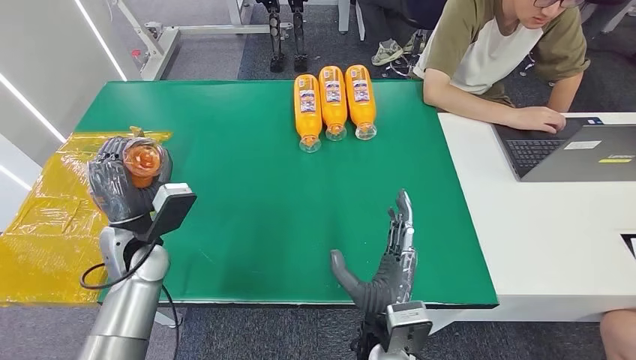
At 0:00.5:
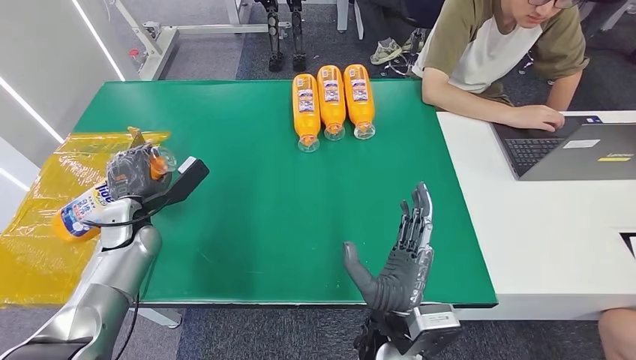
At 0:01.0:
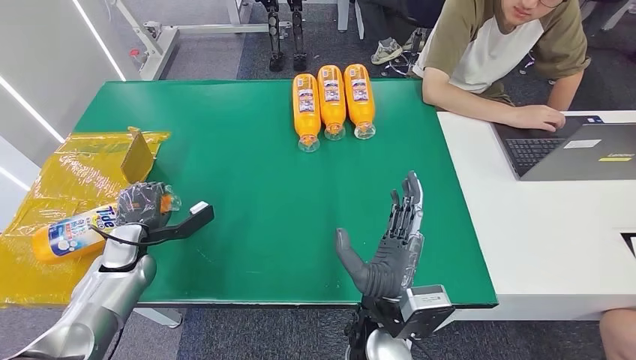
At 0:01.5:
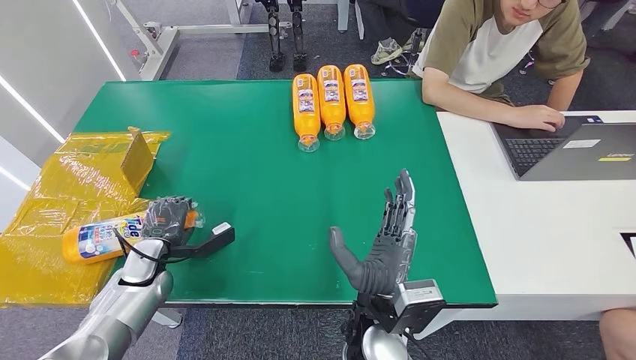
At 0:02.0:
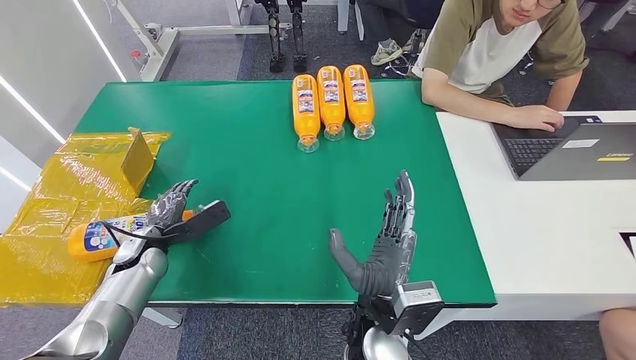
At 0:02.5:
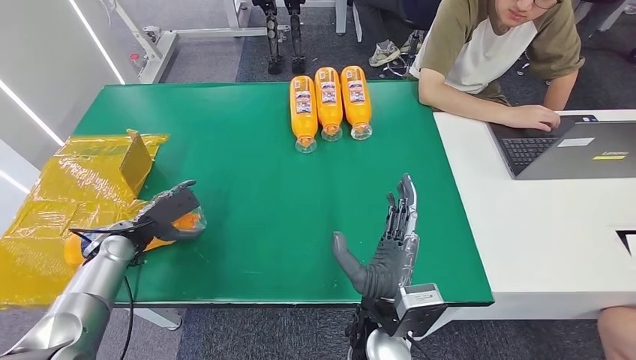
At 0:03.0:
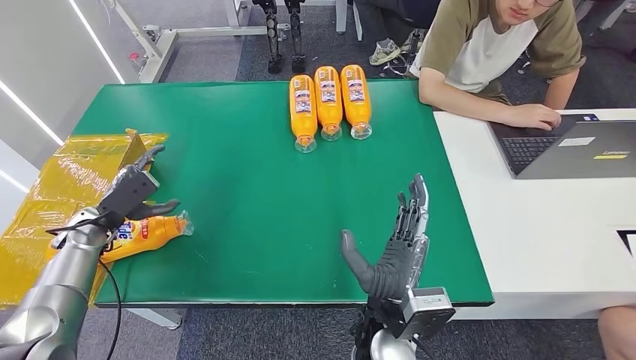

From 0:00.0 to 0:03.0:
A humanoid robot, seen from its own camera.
Step, from 0:00.0 to 0:03.0: Turn the bottle to the front side.
From 0:00.0 to 0:01.5: The left hand heads downward and to the left, covering approximately 15 cm.
From 0:01.5 to 0:03.0: The left hand travels to the left and upward by roughly 10 cm.

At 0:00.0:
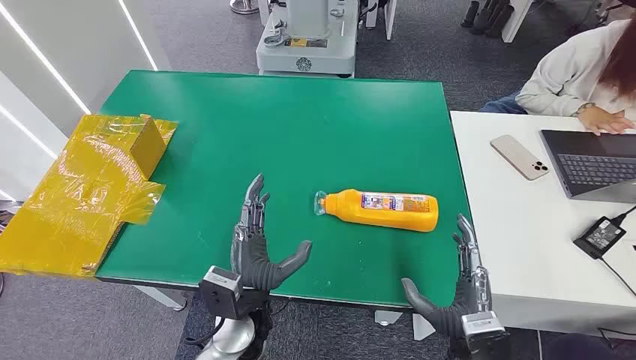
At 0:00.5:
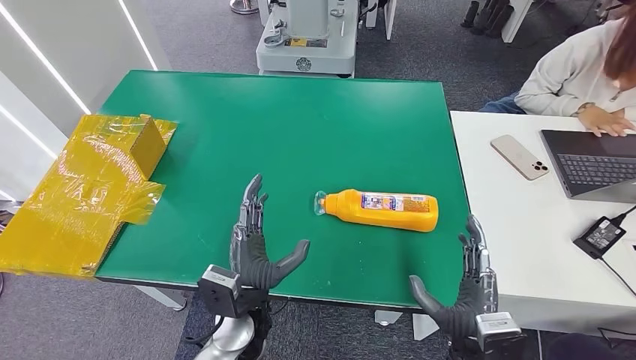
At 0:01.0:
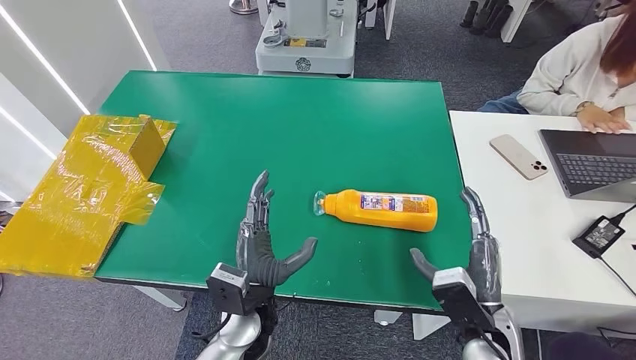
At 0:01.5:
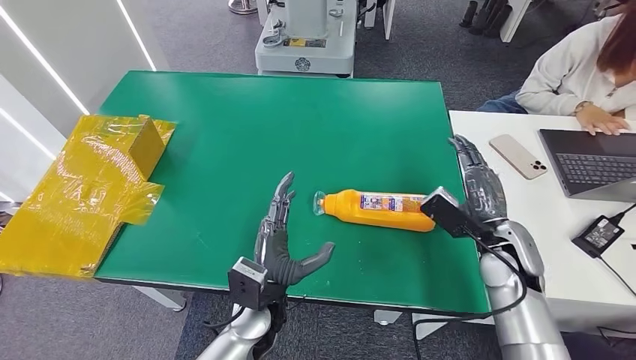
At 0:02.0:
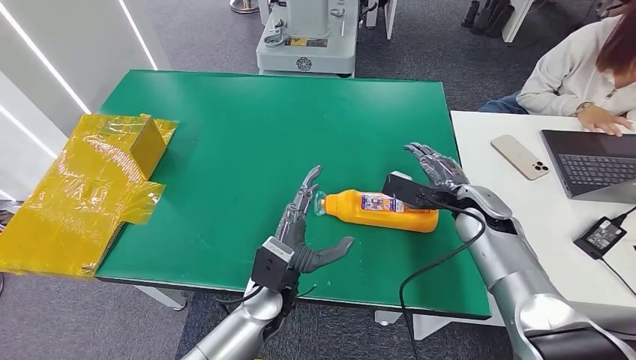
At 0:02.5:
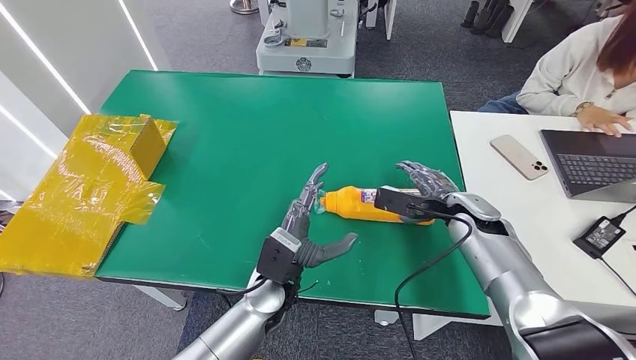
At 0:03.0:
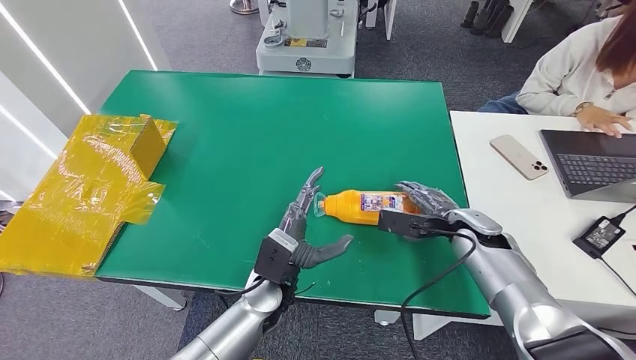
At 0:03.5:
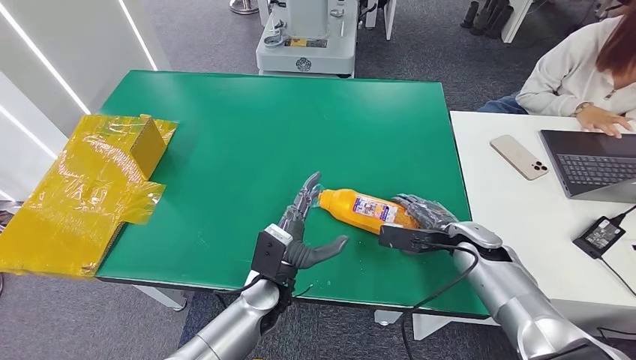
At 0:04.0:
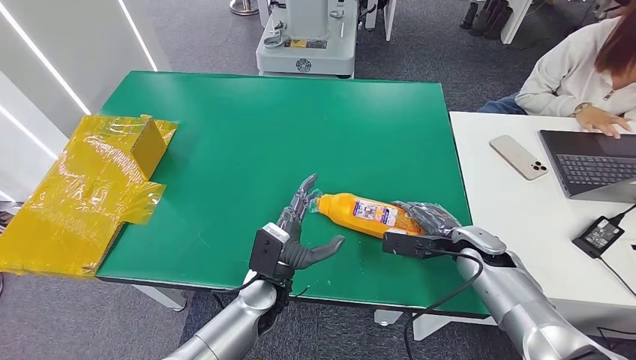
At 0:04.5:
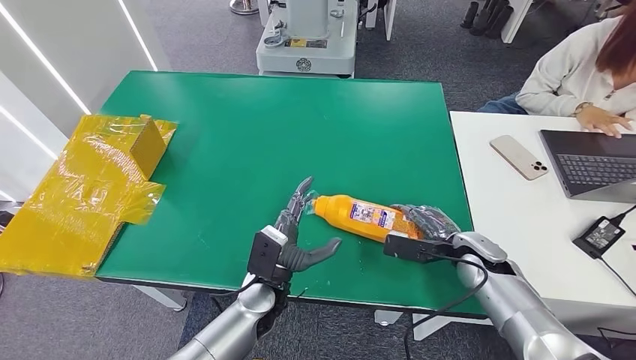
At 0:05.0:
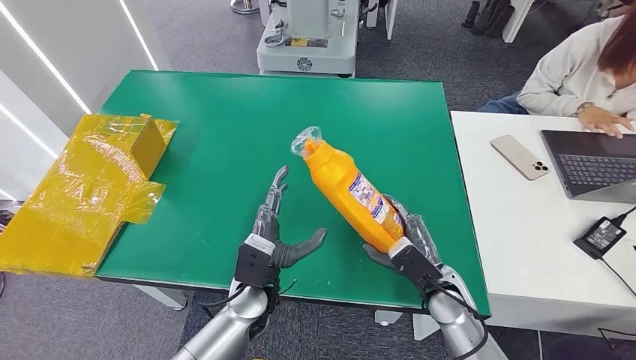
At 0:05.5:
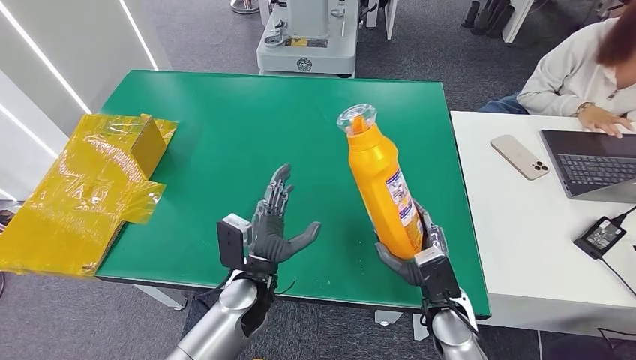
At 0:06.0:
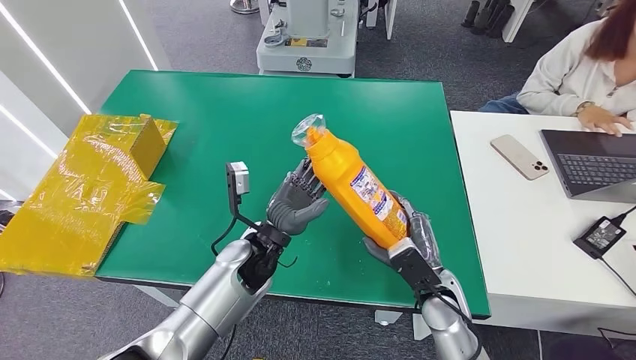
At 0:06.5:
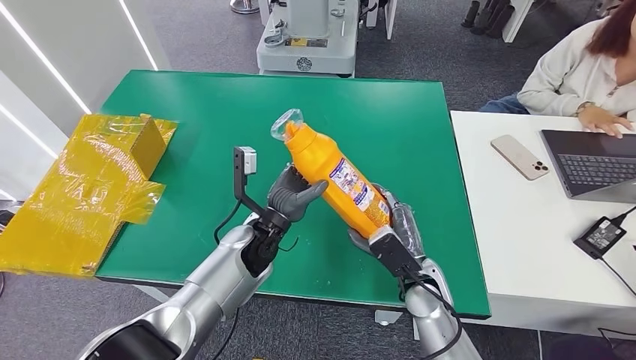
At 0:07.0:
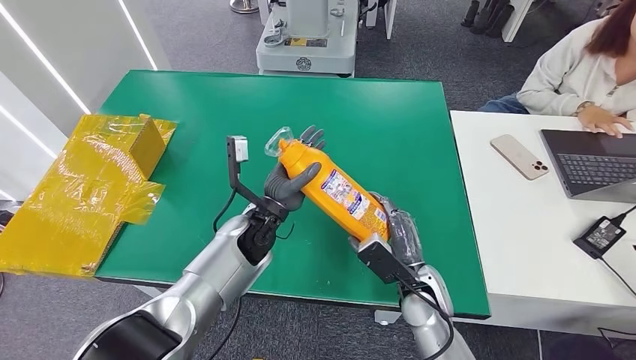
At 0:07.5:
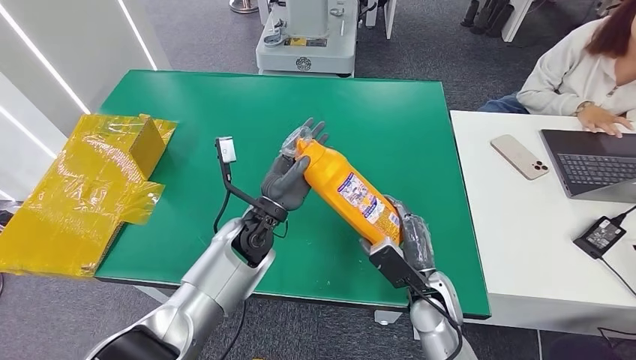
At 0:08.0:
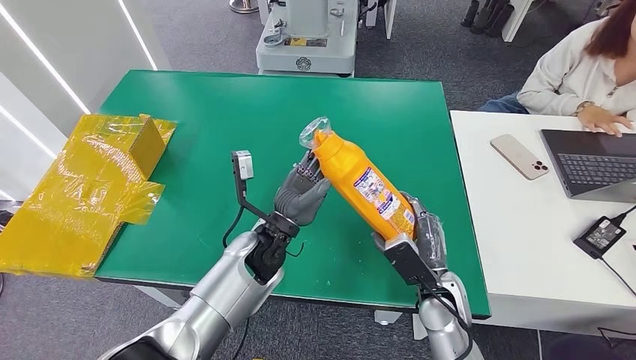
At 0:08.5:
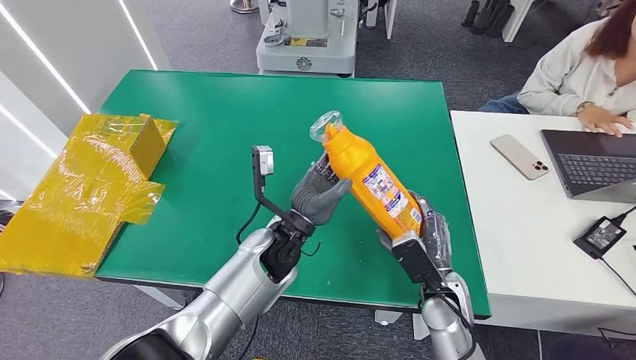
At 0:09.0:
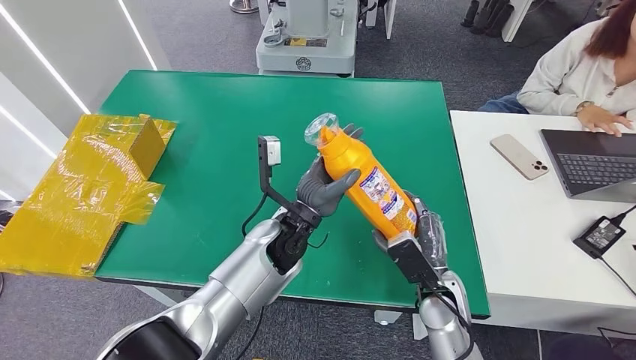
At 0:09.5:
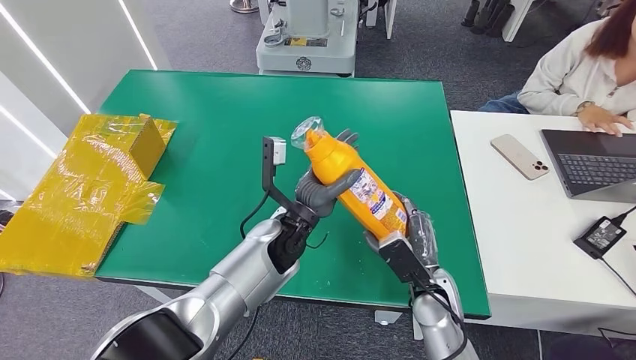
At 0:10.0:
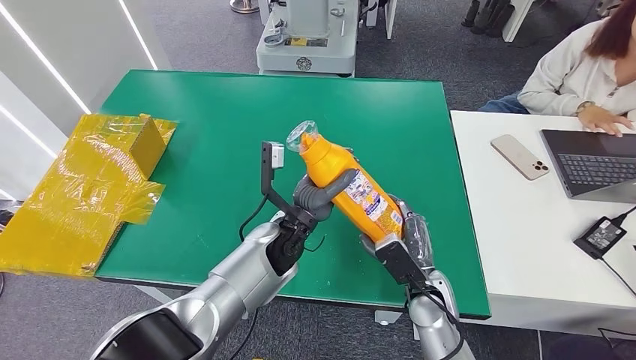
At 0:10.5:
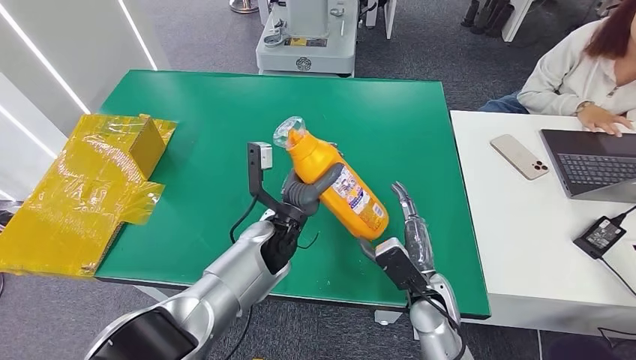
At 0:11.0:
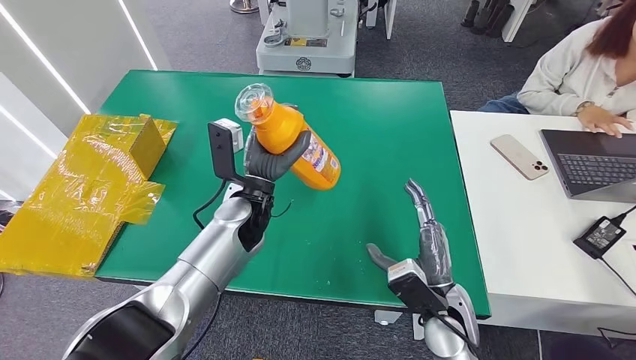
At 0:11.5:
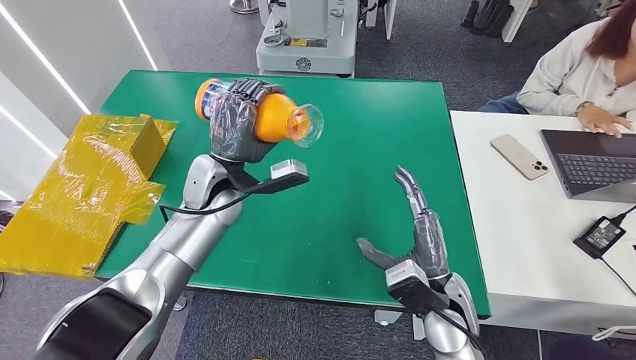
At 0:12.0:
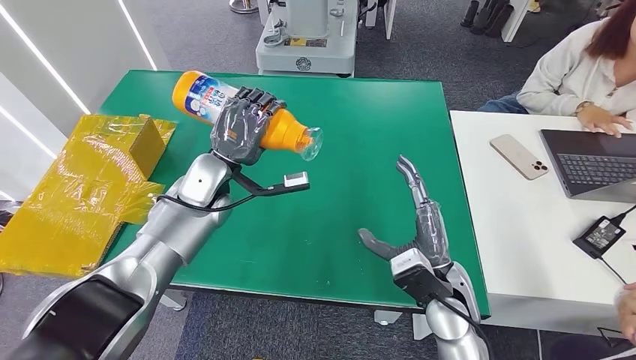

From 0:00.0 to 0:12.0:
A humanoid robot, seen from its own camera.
Step, from 0:00.0 to 0:05.0: Pick up the bottle from the table.
From 0:02.0 to 0:04.0: The right hand heads downward and backward, covering some 10 cm.
From 0:04.0 to 0:06.0: The right hand goes some 15 cm to the left and backward. The left hand moves upward, about 5 cm.
From 0:06.0 to 0:08.0: The hands make only small movements.
From 0:08.0 to 0:10.0: There are only small adjustments of the hands.

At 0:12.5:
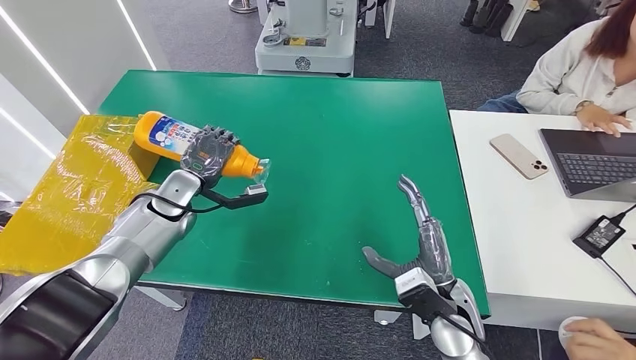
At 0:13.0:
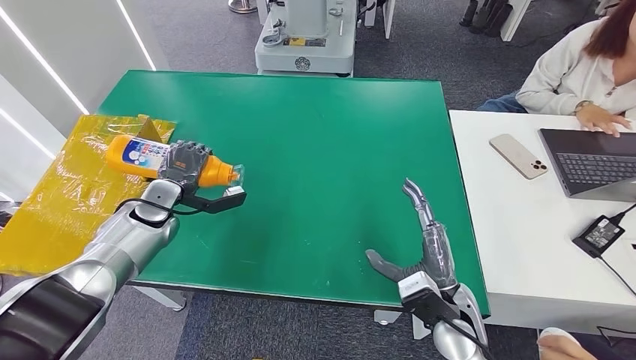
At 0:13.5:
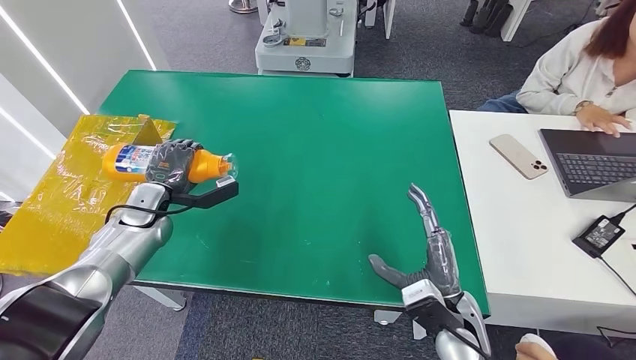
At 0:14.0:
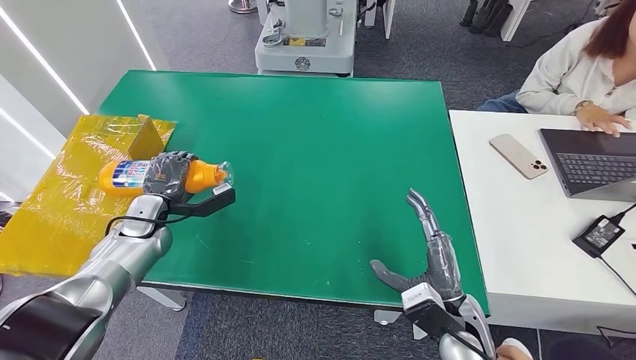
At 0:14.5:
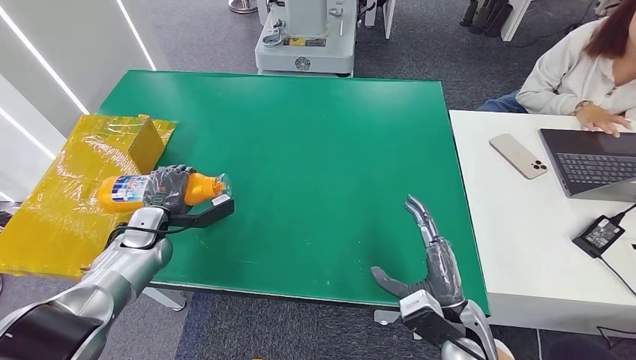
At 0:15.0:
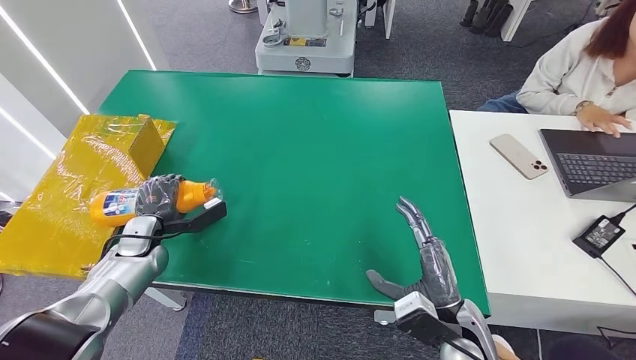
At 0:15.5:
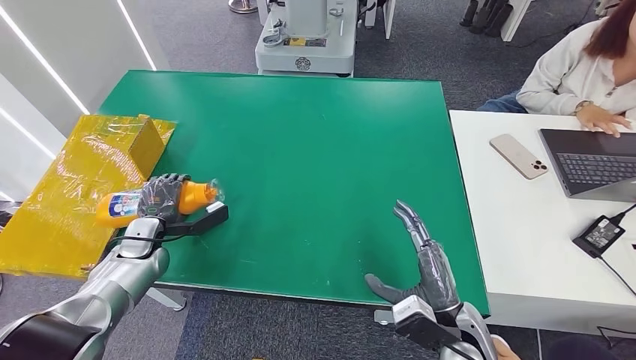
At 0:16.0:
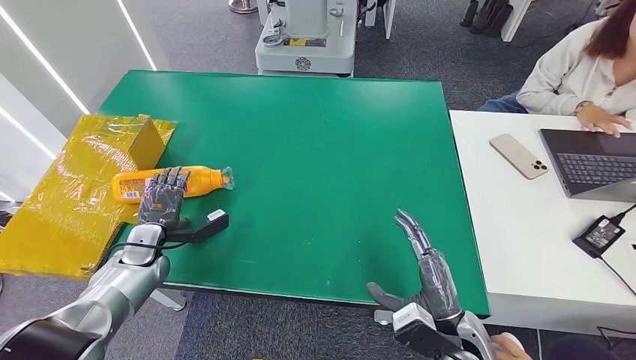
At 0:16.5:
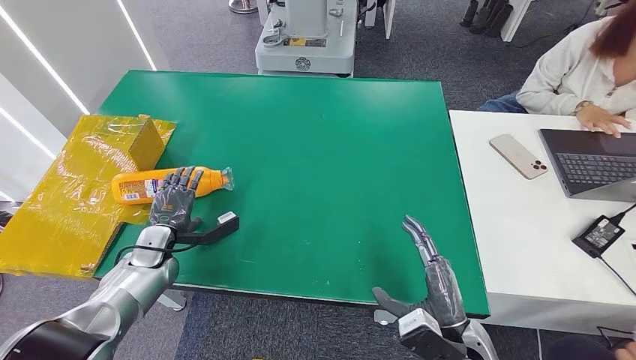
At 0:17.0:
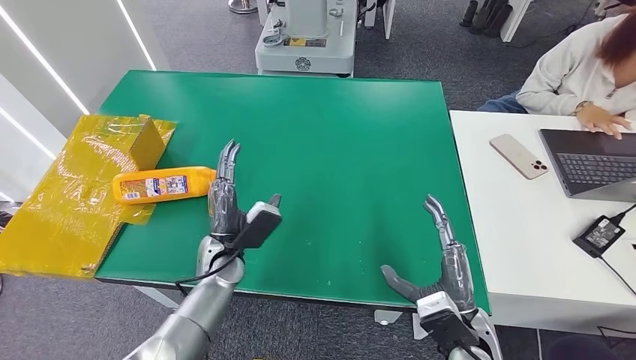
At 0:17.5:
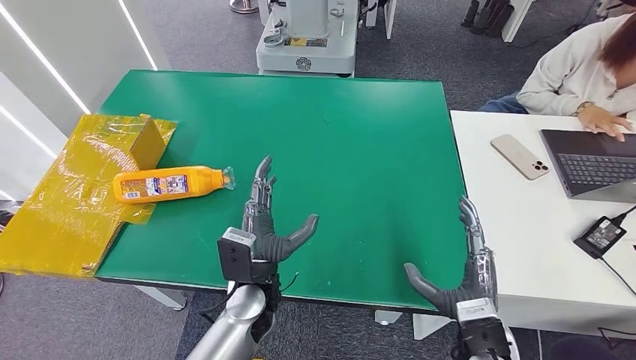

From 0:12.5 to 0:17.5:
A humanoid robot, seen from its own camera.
Step, from 0:12.5 to 0:17.5: Turn the bottle to the front side.
From 0:12.5 to 0:15.0: The left hand heads downward, backward and to the left, covering some 15 cm.
From 0:15.0 to 0:17.5: The left hand is displaced to the right by roughly 25 cm.
